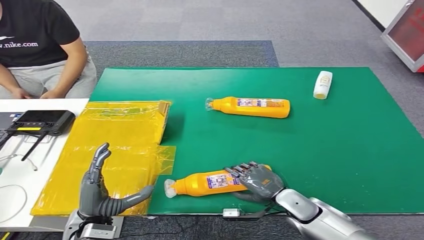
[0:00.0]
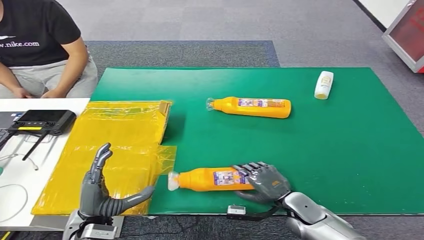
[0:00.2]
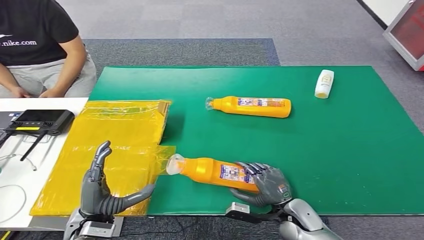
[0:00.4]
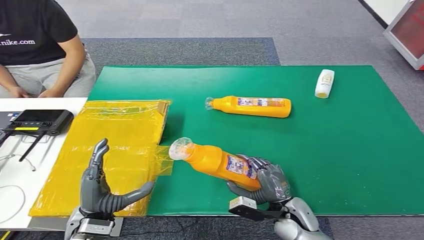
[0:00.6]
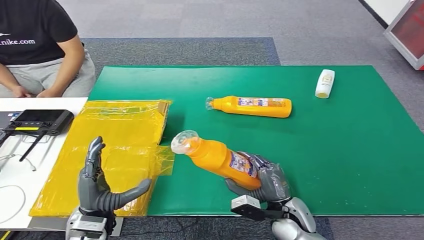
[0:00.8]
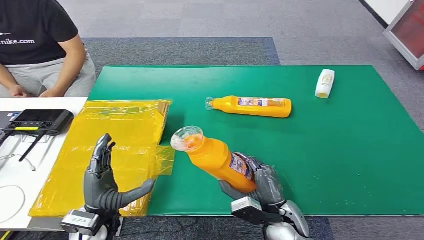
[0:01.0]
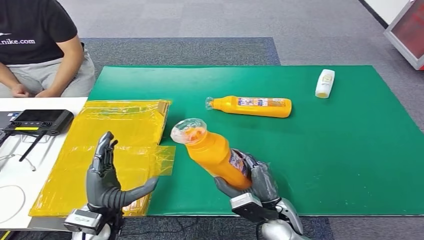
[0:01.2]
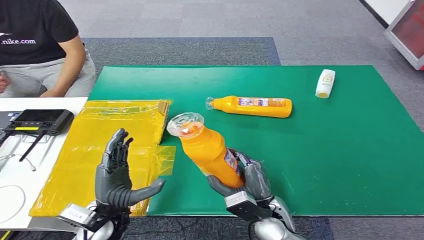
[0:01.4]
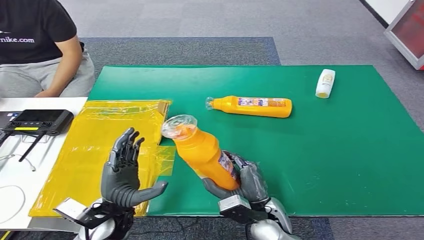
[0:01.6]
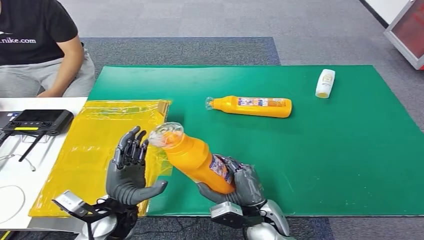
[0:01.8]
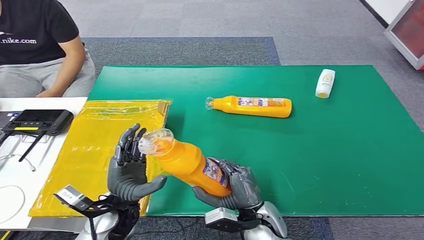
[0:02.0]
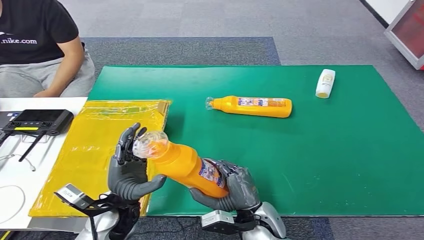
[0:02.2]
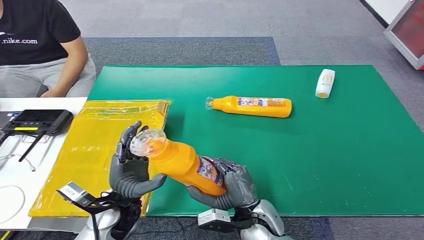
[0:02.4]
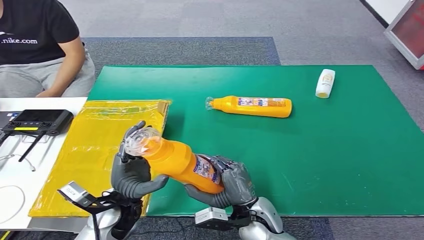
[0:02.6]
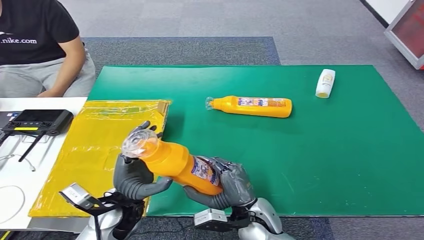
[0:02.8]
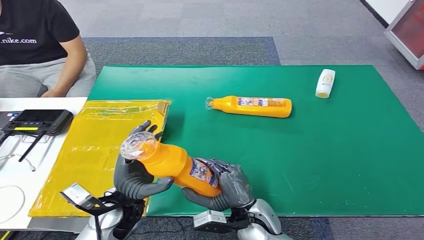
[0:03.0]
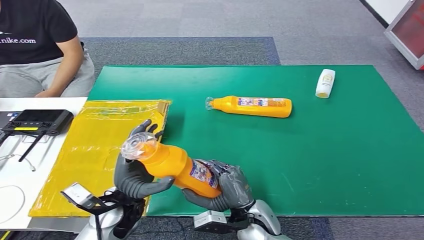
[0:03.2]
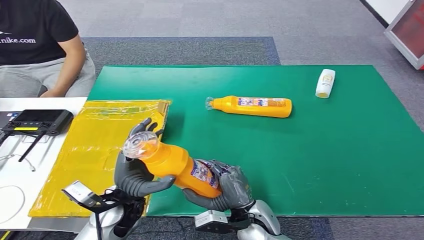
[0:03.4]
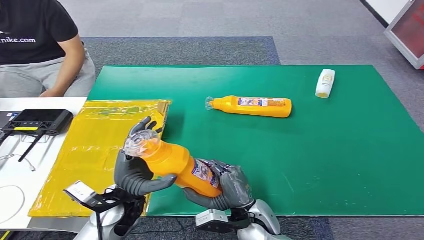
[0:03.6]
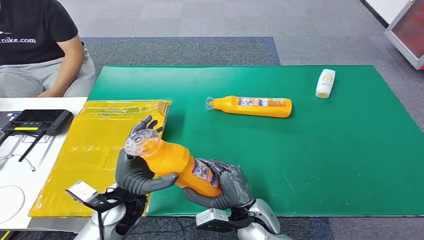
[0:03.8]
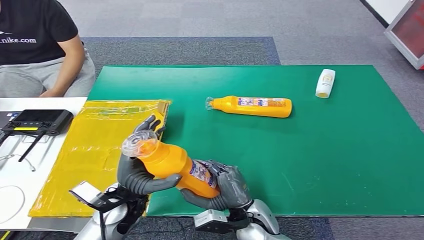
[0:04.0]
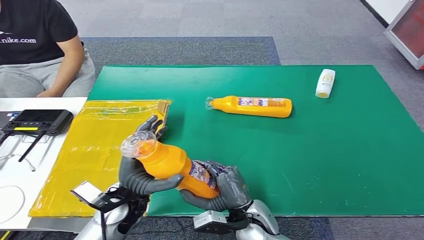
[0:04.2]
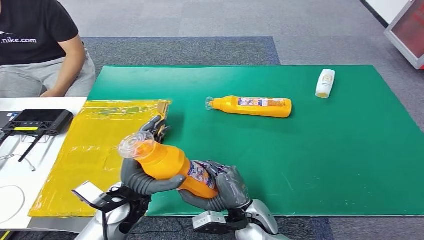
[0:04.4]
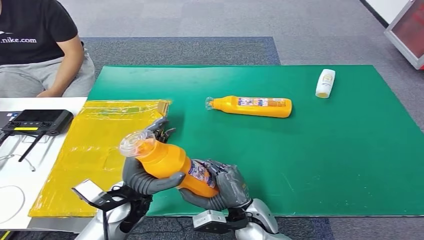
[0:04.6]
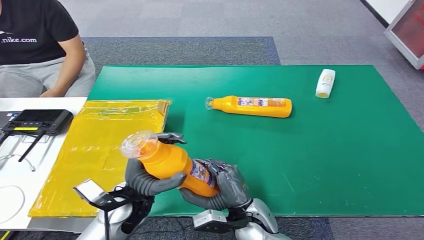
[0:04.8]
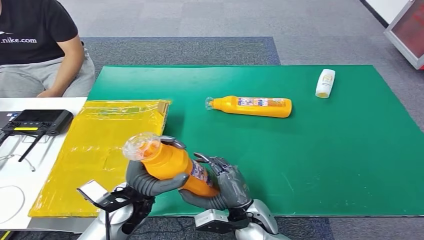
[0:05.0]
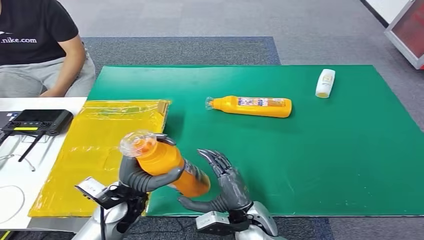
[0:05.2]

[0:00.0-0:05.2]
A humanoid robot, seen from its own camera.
Step, 0:01.2 to 0:05.0: Turn the bottle to the front side.
0:01.8 to 0:05.2: The hands move only a little.
